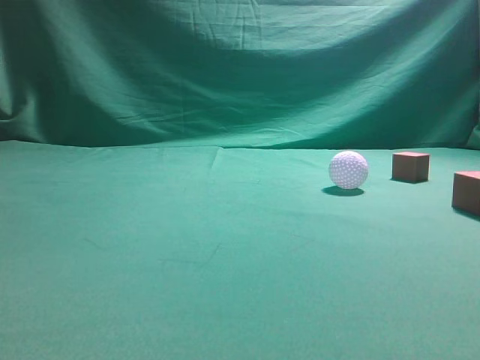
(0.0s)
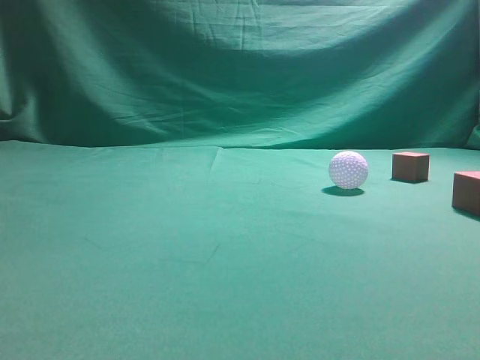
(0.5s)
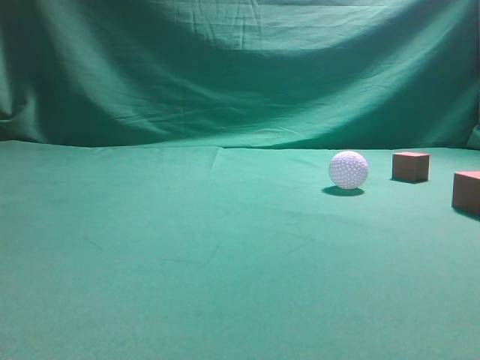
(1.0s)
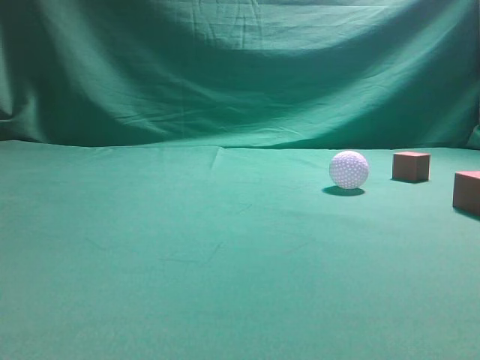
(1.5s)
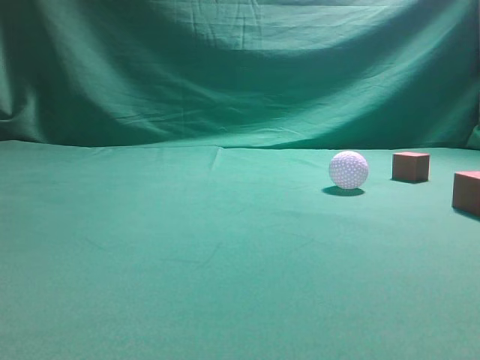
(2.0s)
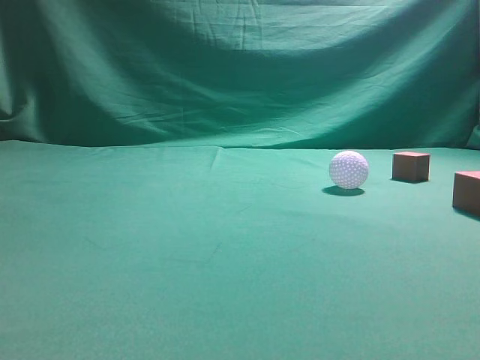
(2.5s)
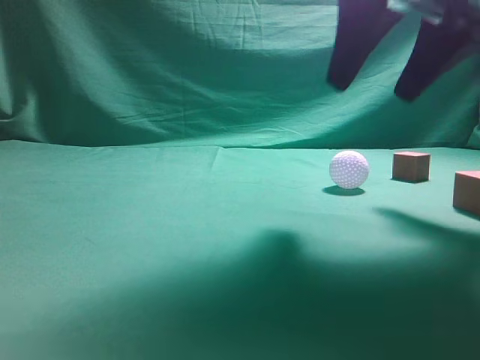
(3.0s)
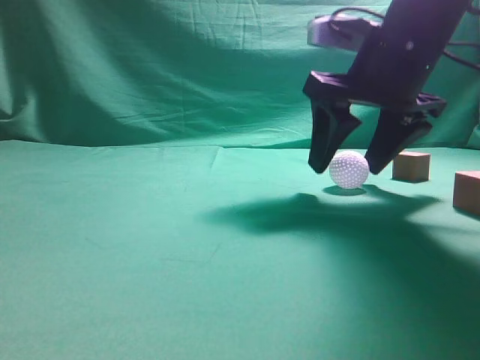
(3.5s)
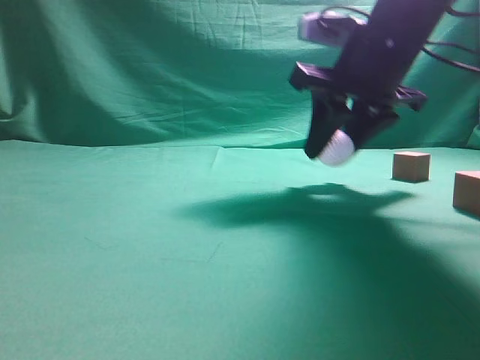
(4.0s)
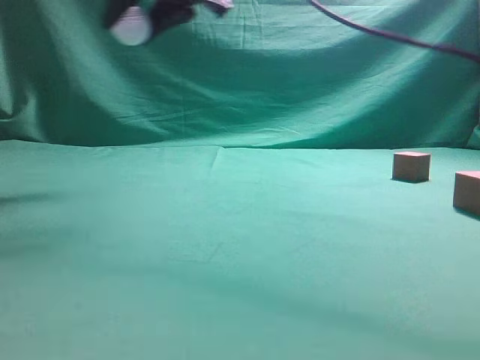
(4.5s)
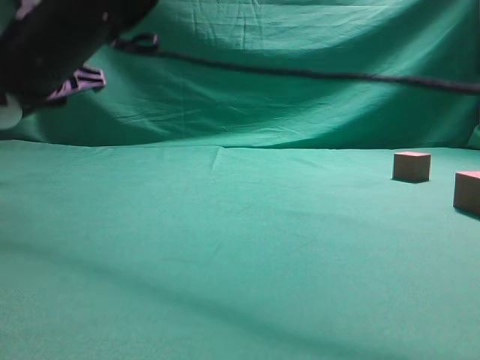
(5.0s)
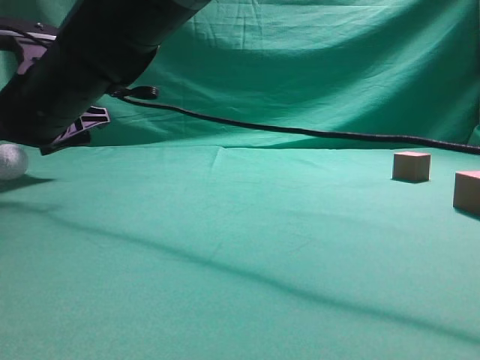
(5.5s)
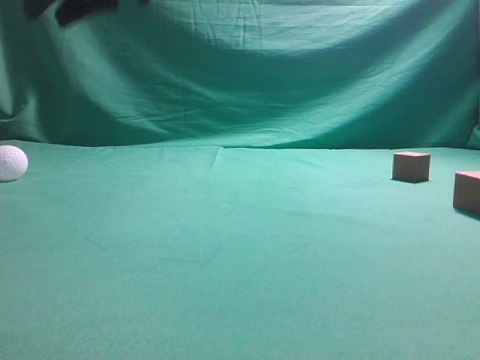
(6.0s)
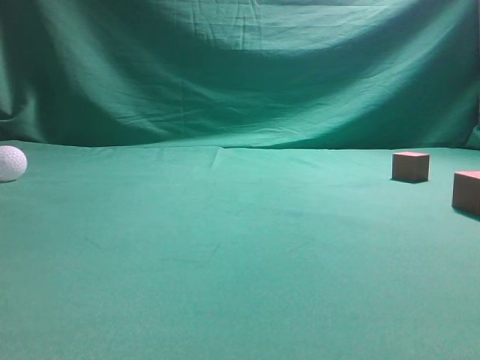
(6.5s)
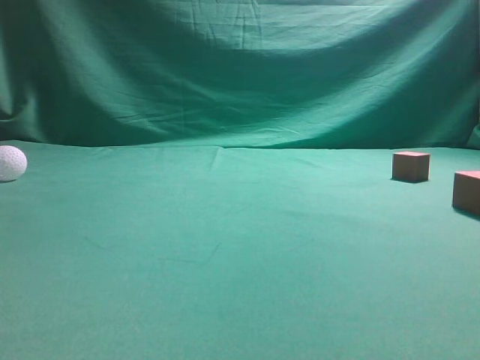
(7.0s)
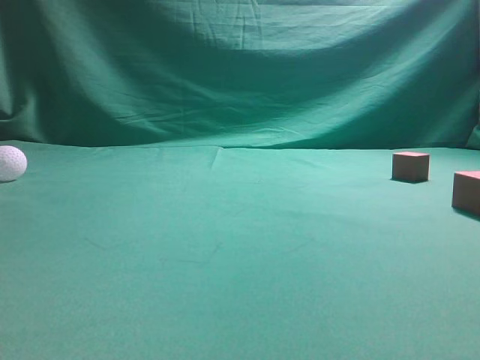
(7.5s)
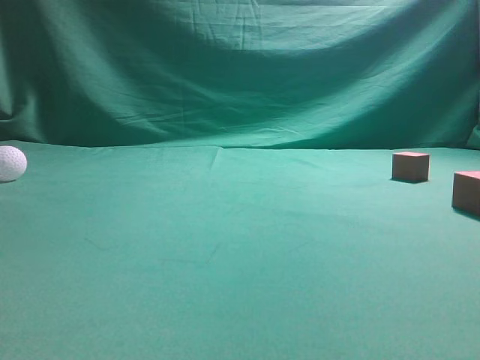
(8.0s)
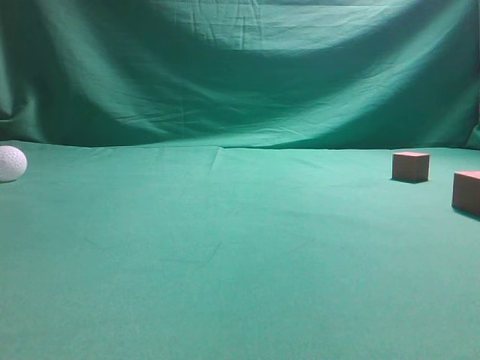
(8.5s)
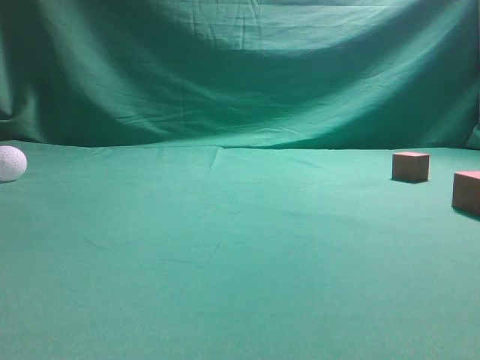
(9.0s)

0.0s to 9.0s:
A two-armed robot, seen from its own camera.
Step, 0.0s to 4.0s: Grasp the spherical object on the right side.
2.0s to 4.5s: The right gripper shifts some 50 cm to the left and forward, and opens.
4.5s to 7.0s: The right gripper heads to the right, backward and upward, covering some 25 cm, and closes its fingers.
